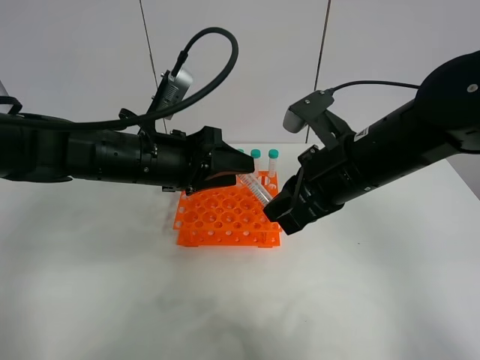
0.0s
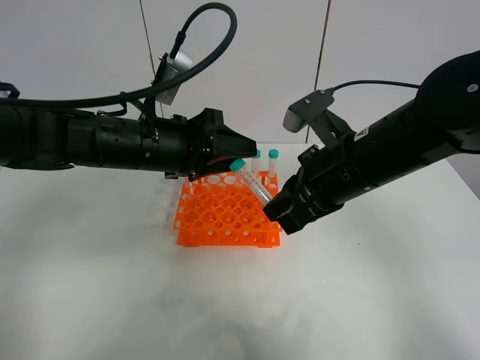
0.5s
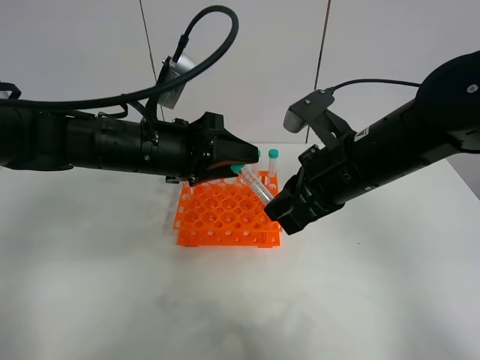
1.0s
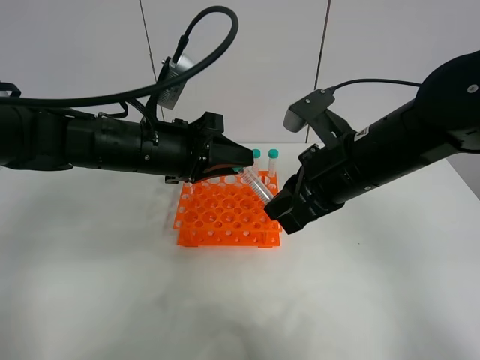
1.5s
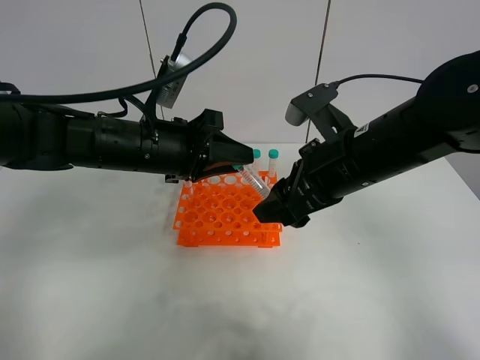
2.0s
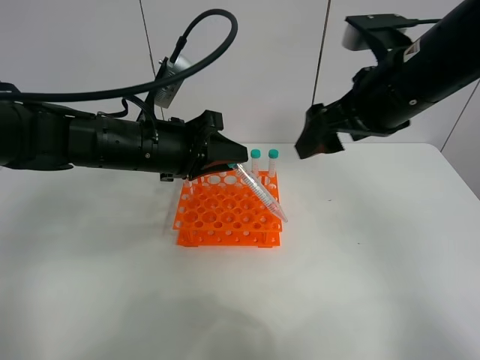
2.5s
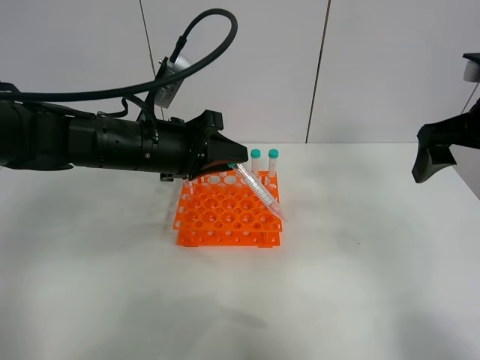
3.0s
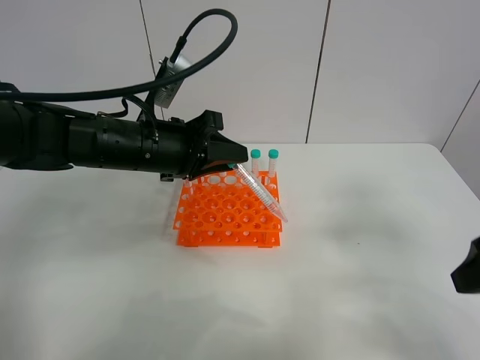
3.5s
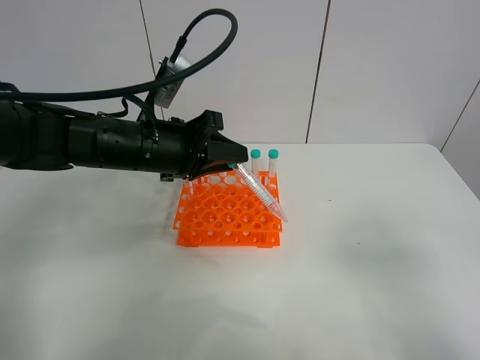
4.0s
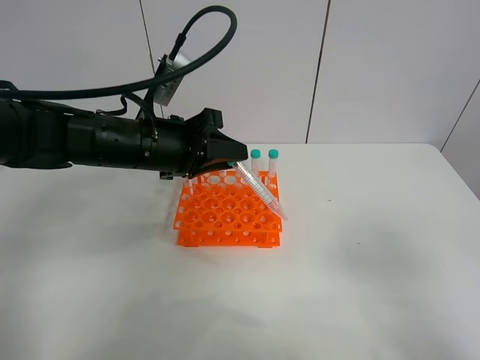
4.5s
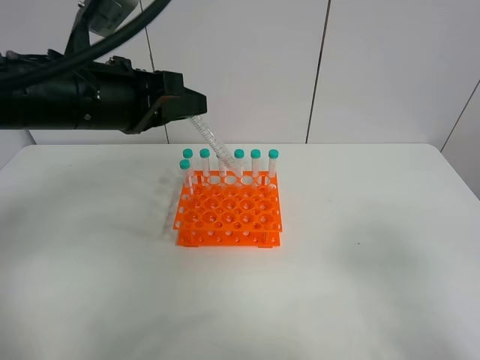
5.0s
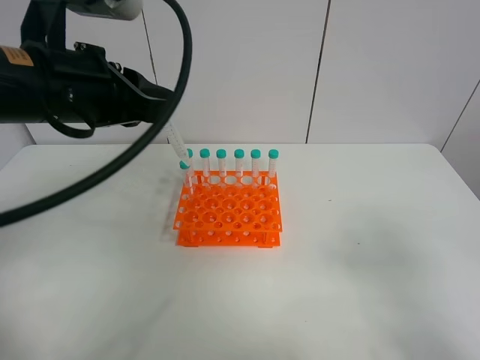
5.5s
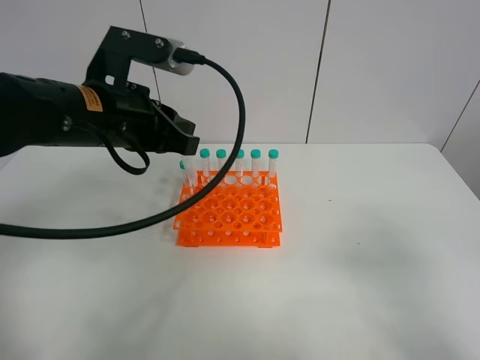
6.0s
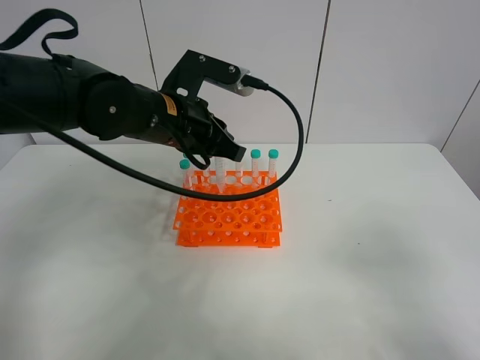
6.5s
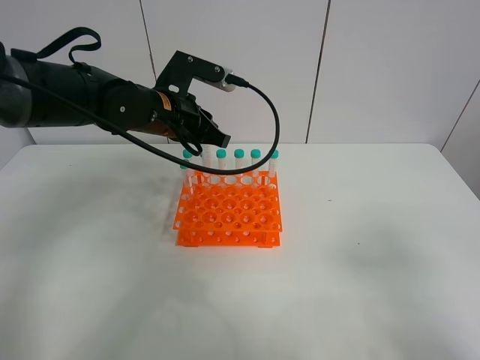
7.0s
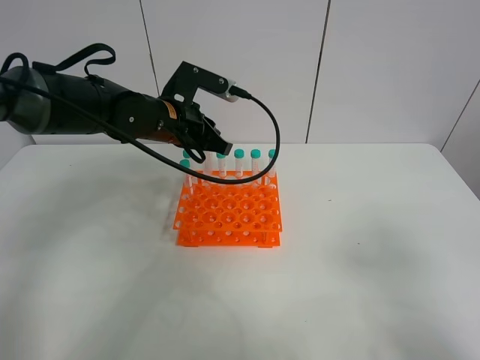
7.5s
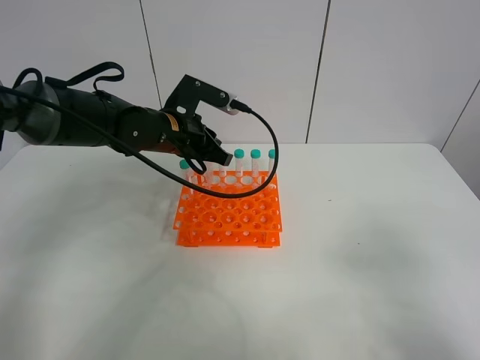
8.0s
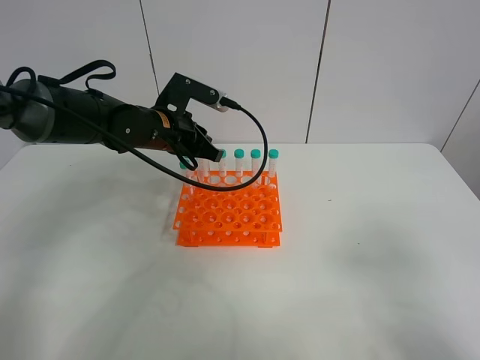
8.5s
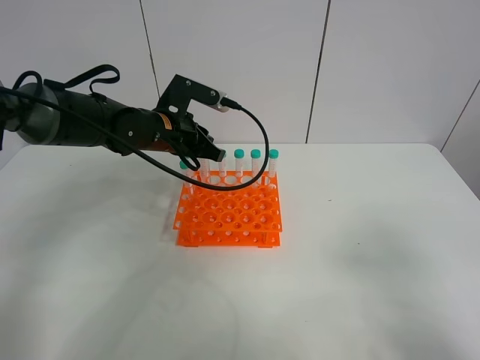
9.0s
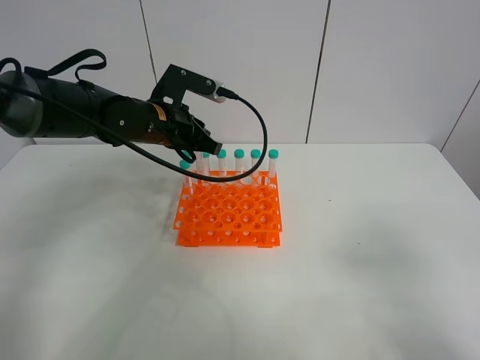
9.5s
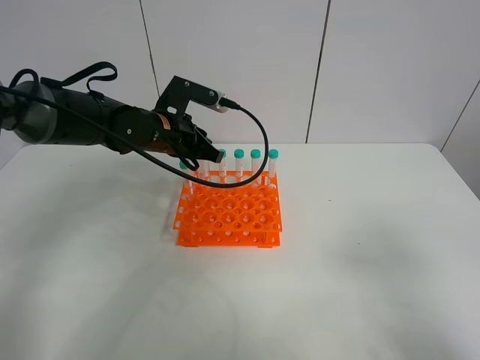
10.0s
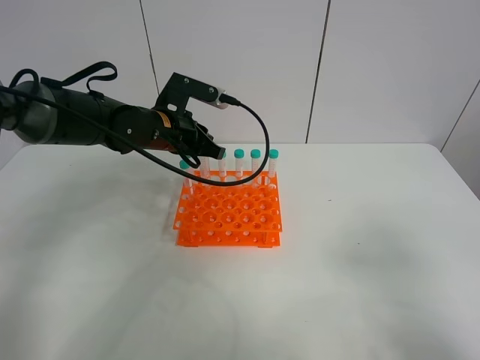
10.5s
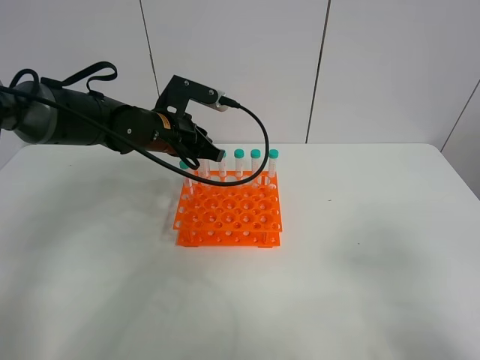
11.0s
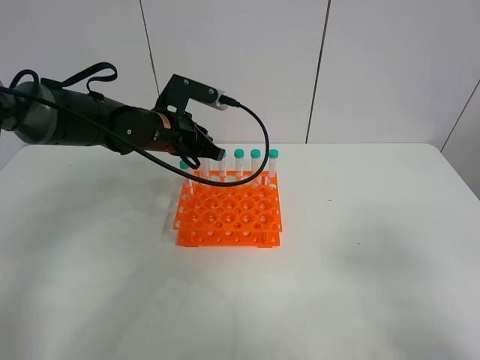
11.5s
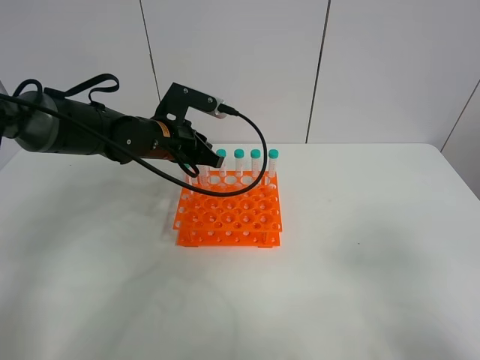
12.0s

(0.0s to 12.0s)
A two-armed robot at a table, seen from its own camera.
Task of the whole recording: Put the test tube on the table back onto the test tube rack.
Step, 0.0s - 2.5s: Move the test tube from the right gripper to the left gripper.
0.0s - 2.0s: The left gripper closes, while the right gripper opens.
2.0s - 4.0s: The right gripper is displaced backward and to the right by about 30 cm.
4.0s - 6.0s: The left gripper is displaced upward by roughly 5 cm.
6.0s - 8.0s: The left gripper heads forward and downward, covering approximately 15 cm.
8.0s - 10.0s: The grippers make only small movements.
10.0s - 12.0s: Neither gripper changes place.

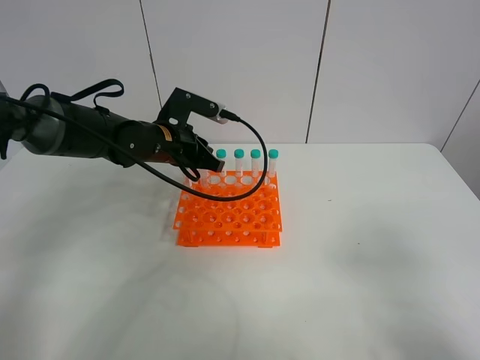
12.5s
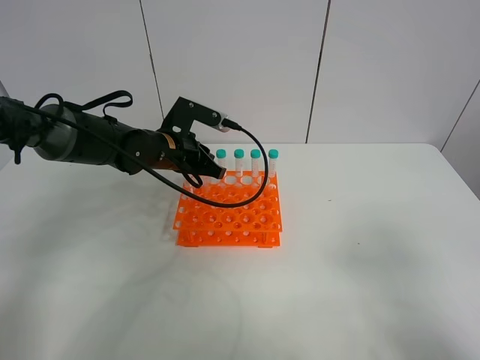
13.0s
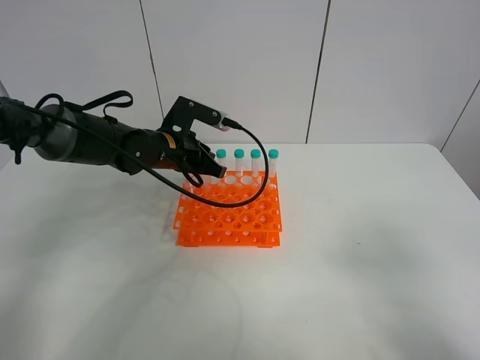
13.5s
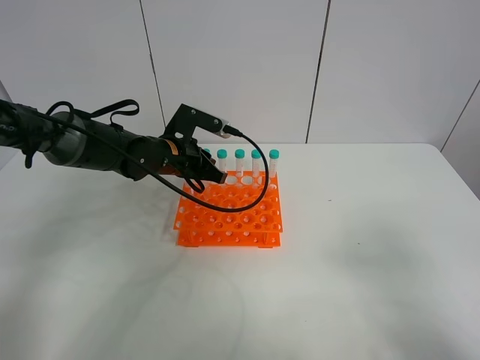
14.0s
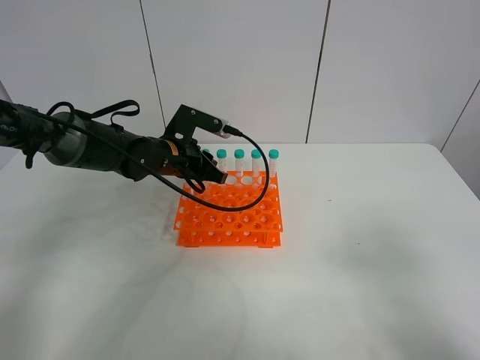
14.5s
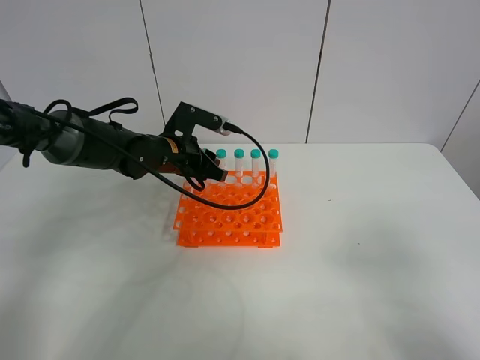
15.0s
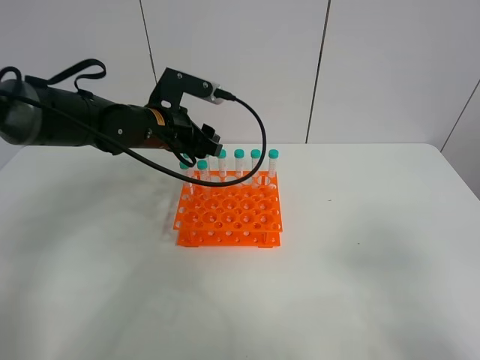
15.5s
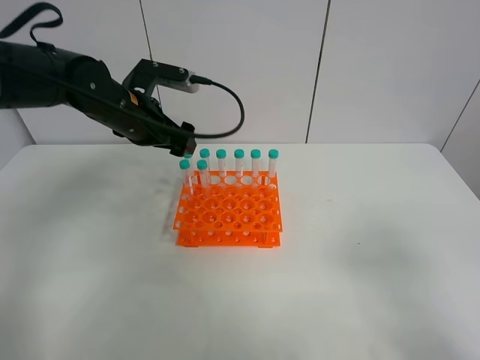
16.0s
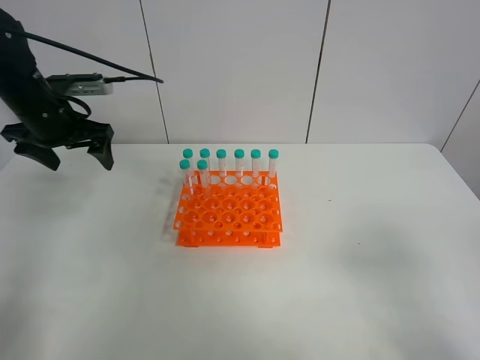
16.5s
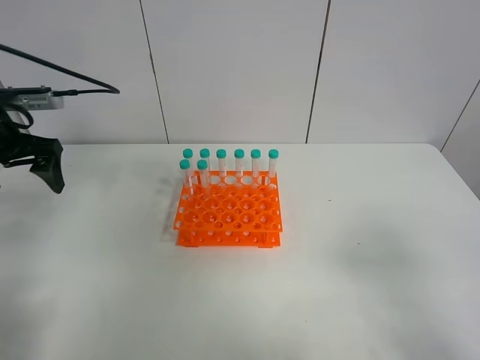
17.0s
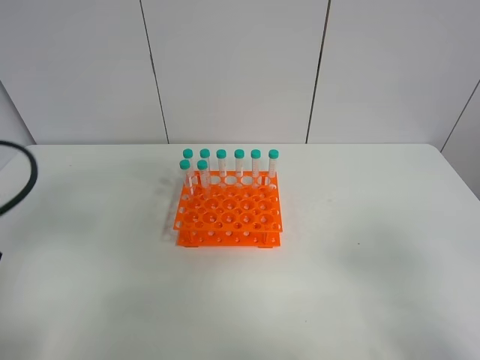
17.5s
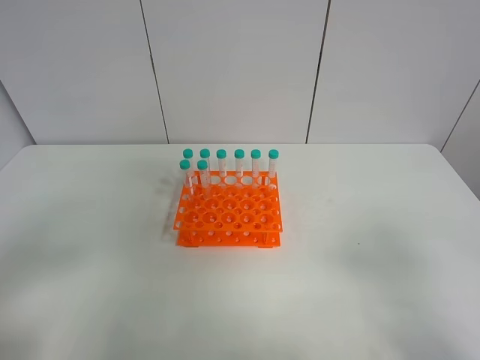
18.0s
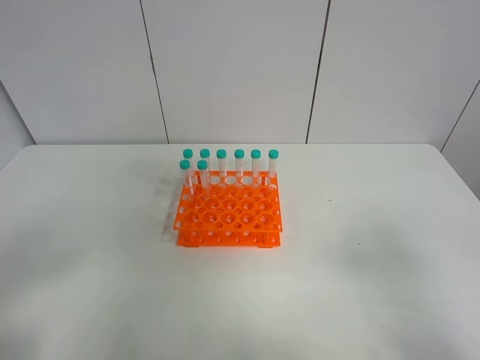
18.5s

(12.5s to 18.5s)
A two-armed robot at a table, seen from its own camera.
Task of the whole recording: Put the test tube on the table back onto the test tube rack.
Step, 12.5s - 16.0s: Place the test tube on the test tube rack with the left gripper.
12.5s - 14.5s: The grippers stay close to where they were, moving slightly.
14.5s - 16.5s: The left gripper moves to the left and upward, roughly 20 cm, and opens.
16.5s - 18.5s: The left gripper is displaced backward by some 40 cm.
